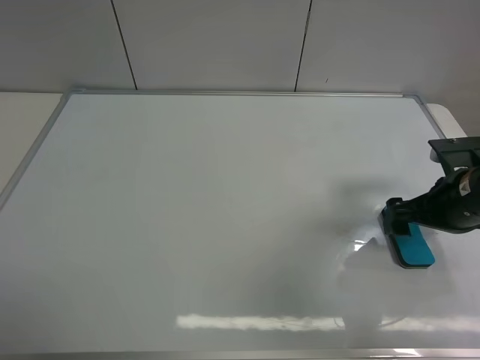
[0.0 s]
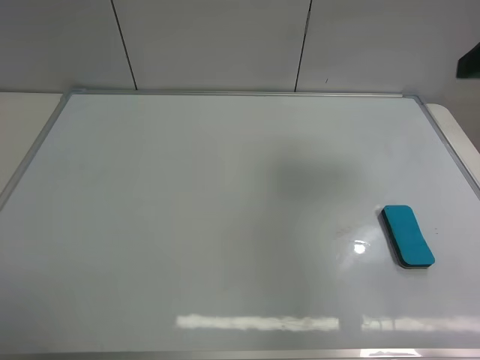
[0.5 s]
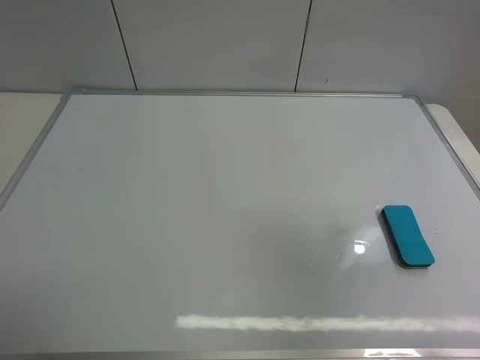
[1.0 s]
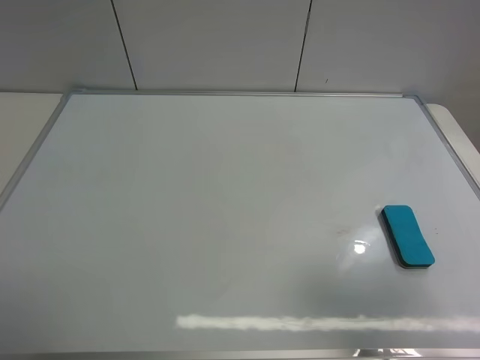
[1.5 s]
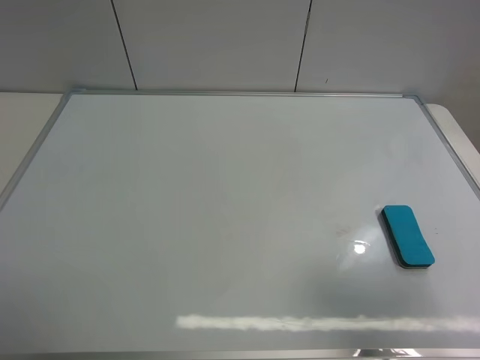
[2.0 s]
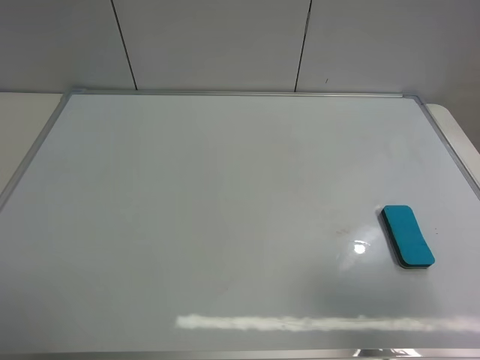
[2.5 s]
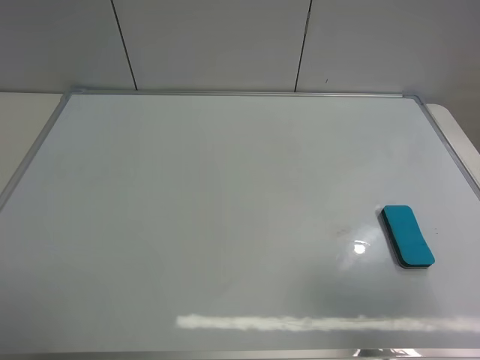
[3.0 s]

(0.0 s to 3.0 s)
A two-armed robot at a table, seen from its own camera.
Task of the whole recording: use the left gripper to place the eraser in the right, use the right gripper to pick up the eraser, wipe the notes on the whiteboard clean, and then put it down.
0.0 s - 1.5 s: The right gripper goes some 25 cm backward and upward.
1.5 s - 3.0 s: Both grippers stay put.
